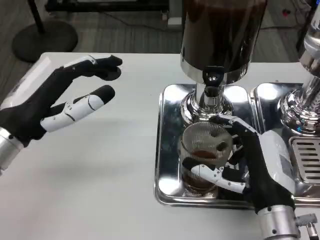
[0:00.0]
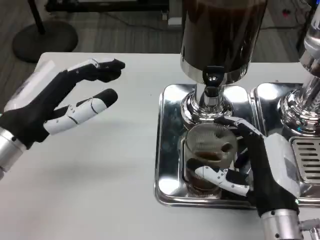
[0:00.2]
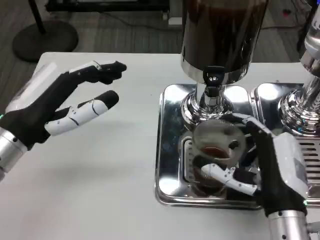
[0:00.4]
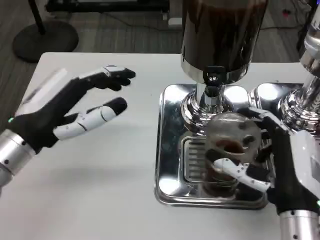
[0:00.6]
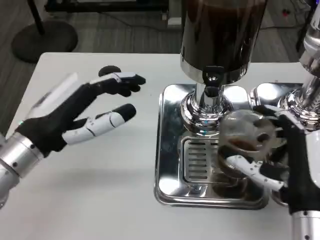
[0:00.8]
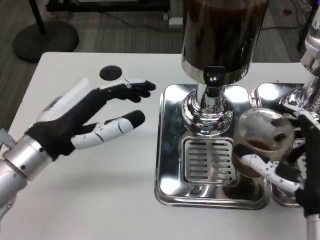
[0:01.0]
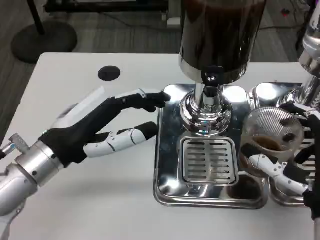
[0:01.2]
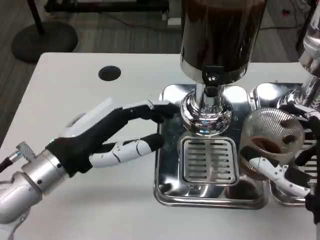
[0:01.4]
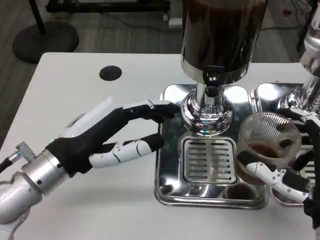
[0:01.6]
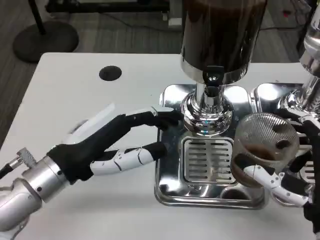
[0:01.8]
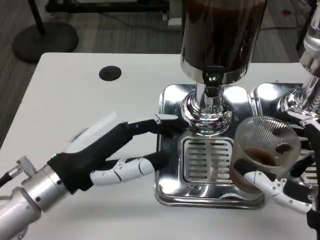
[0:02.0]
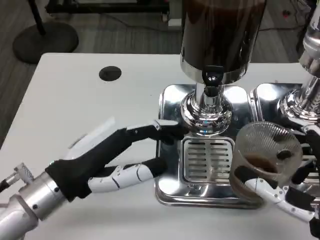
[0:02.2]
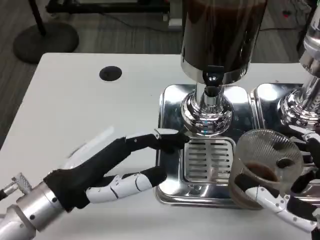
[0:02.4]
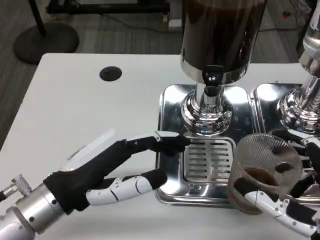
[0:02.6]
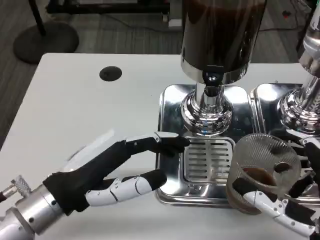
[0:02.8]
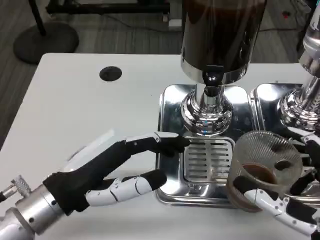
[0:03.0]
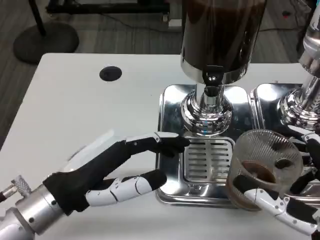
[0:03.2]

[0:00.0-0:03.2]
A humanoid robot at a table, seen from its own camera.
Task of the whole recording: Grasp the cup under the faucet to collect the drink, then remove the cup.
0:00.0 to 0:01.6: The left hand ends up about 5 cm from where it was. The right hand moves some 5 cm.
0:01.6 to 0:03.2: The right hand ends up about 5 cm from where it was.

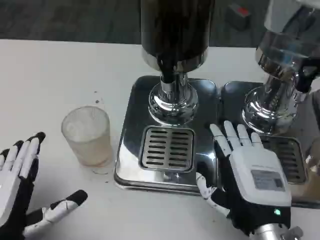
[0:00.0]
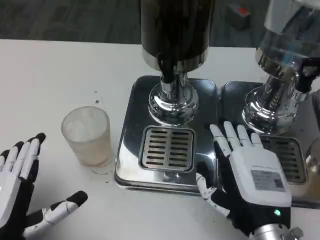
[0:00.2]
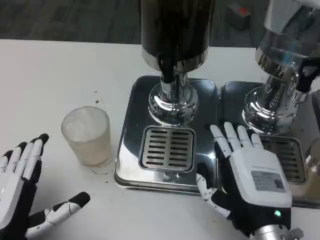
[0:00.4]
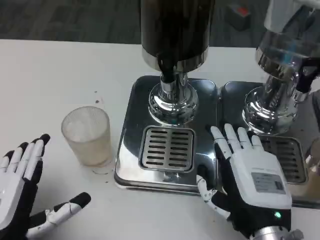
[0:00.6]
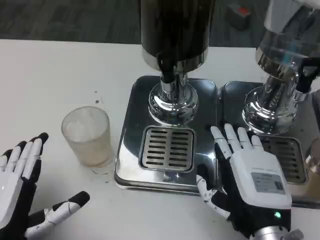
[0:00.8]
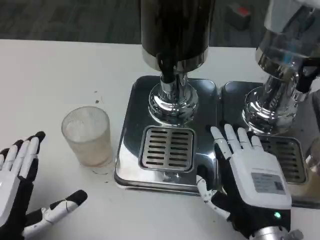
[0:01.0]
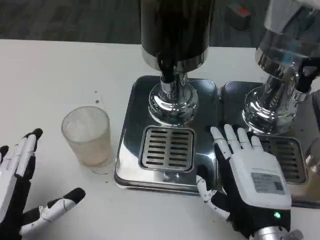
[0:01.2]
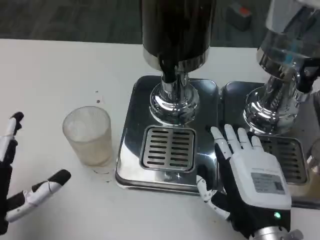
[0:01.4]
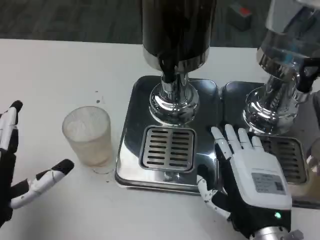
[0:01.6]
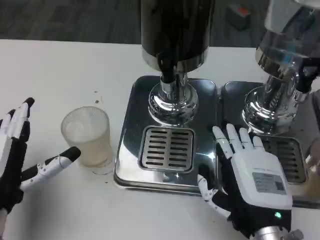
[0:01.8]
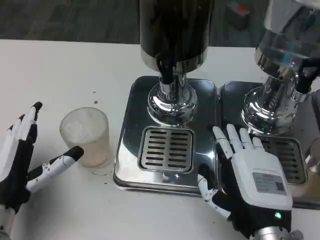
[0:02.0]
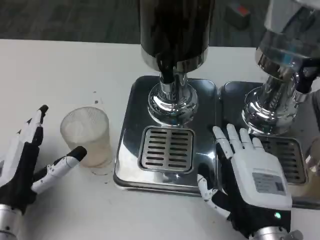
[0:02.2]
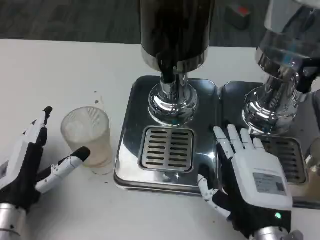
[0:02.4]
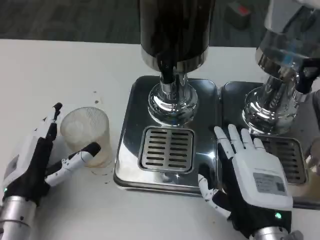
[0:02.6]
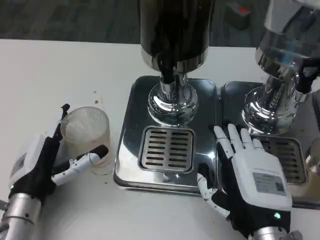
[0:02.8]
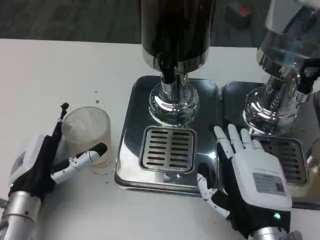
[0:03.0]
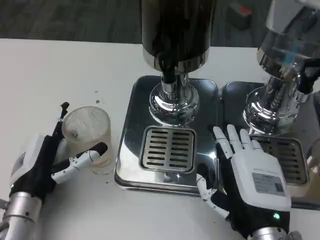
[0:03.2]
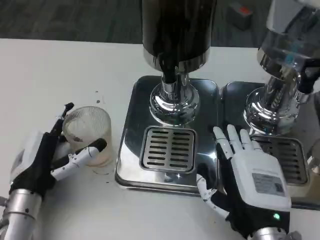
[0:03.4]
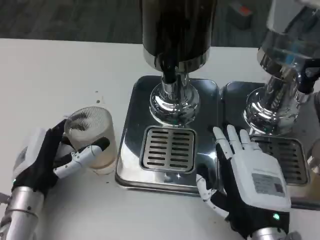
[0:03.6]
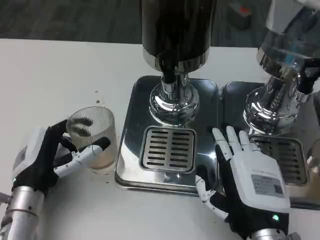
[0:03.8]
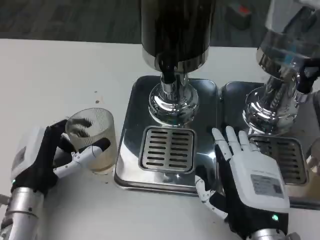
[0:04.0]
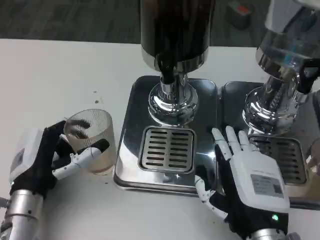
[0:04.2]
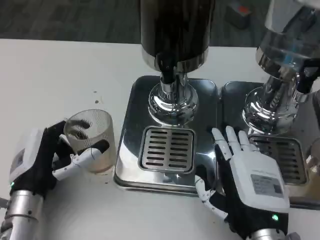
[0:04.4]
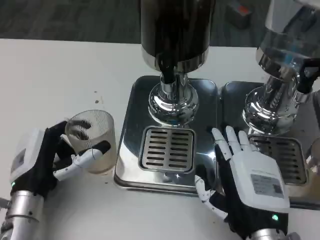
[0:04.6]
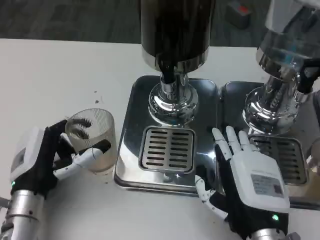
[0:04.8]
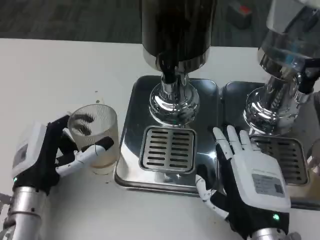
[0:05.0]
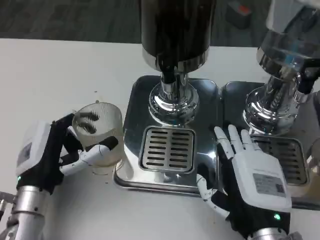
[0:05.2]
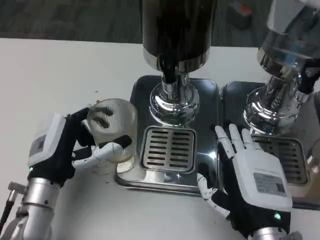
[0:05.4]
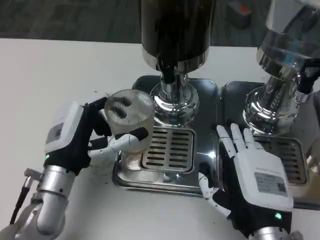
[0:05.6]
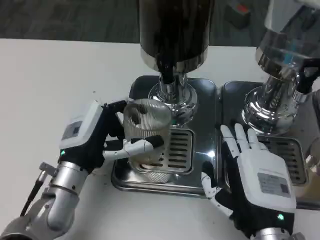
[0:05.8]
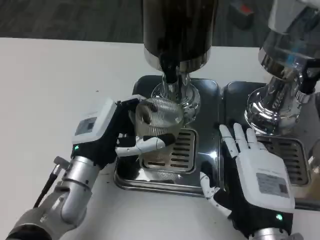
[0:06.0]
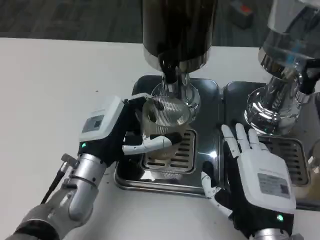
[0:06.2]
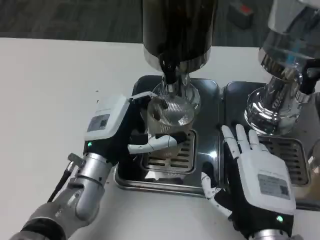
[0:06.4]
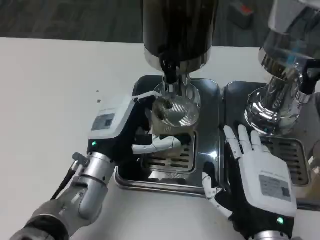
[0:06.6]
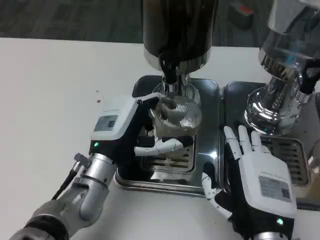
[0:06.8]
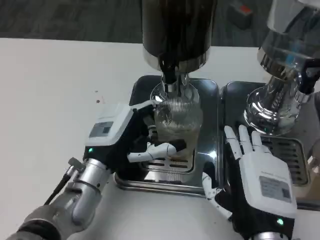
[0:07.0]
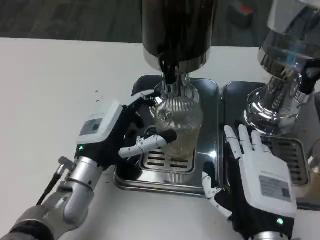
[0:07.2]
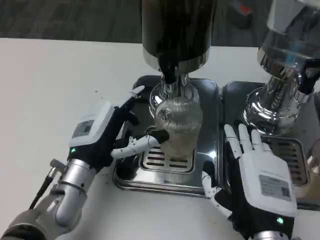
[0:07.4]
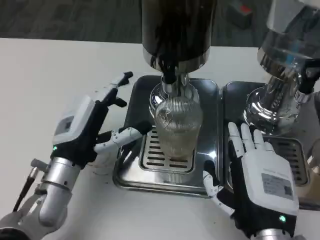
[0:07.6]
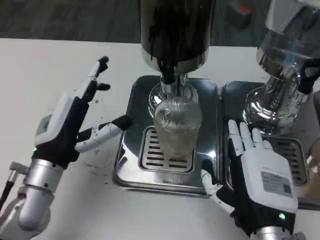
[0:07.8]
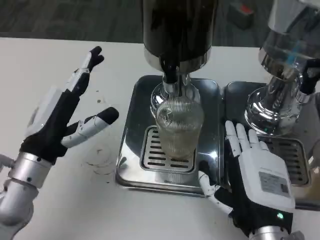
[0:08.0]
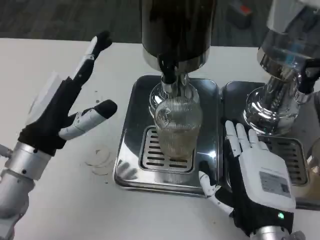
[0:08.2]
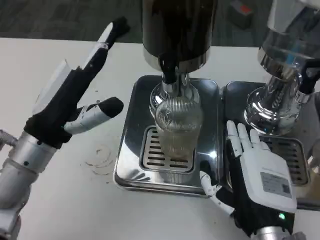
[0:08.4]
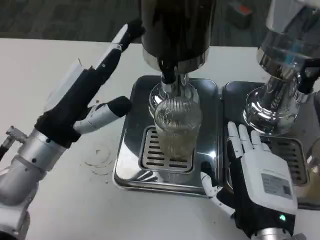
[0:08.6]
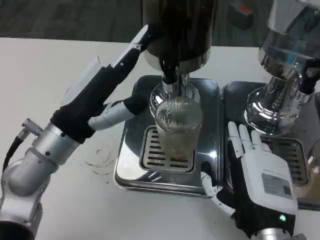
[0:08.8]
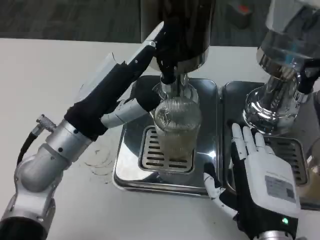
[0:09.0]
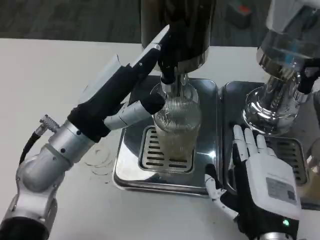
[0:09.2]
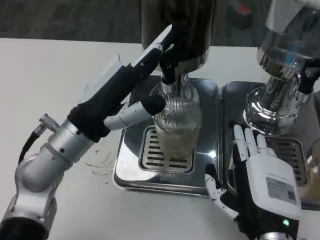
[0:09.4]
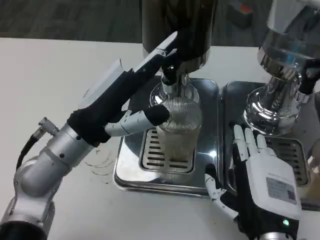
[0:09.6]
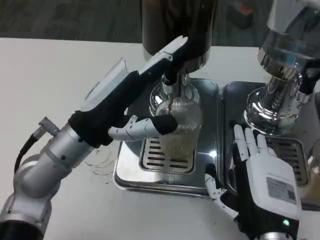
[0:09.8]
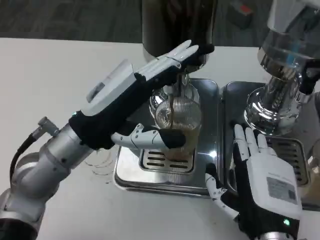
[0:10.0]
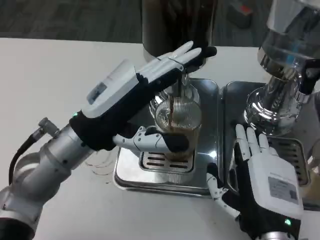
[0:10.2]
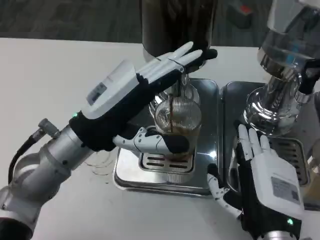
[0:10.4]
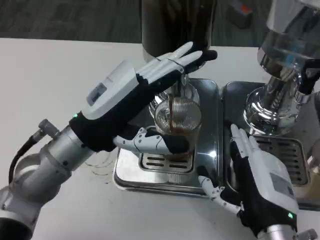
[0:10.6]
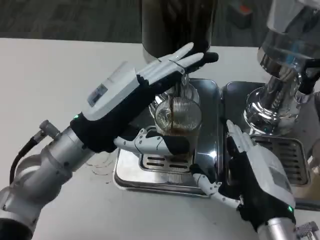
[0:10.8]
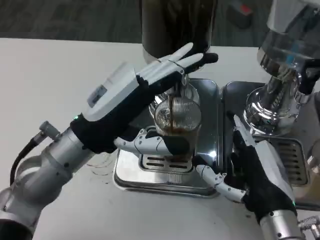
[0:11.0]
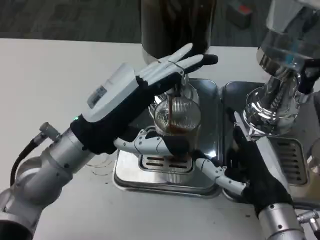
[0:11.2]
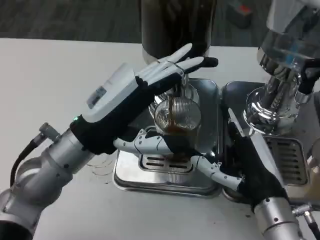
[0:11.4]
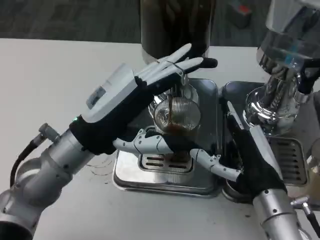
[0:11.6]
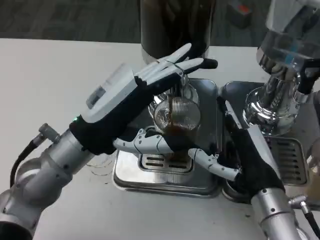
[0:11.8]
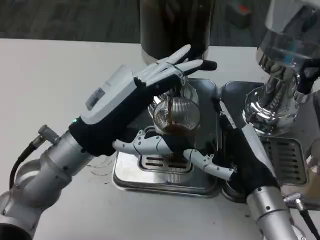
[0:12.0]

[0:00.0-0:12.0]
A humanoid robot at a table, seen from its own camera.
Task of the whole recording: Grasp the cup under the faucet to collect the drink, then remove the cup.
0:00.0 to 0:01.6: The hands stay close to where they were, moving slightly.
0:01.6 to 0:03.0: The left hand shifts roughly 5 cm forward.
0:03.0 to 0:04.4: The hands stay close to where they were, moving slightly.
0:04.4 to 0:06.0: The left hand heads to the right, covering some 5 cm.
0:07.6 to 0:09.0: The left hand is displaced upward by approximately 5 cm.
0:10.4 to 0:12.0: The right hand moves forward, some 5 cm.

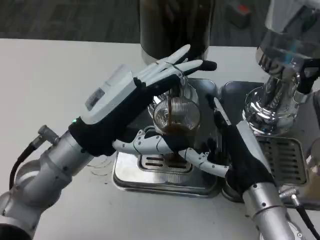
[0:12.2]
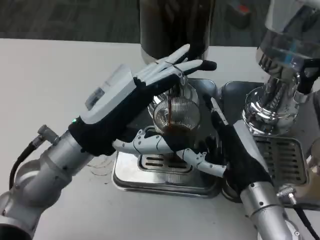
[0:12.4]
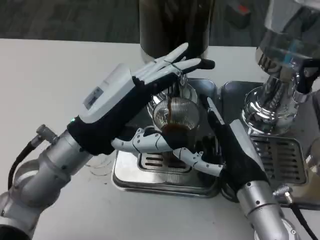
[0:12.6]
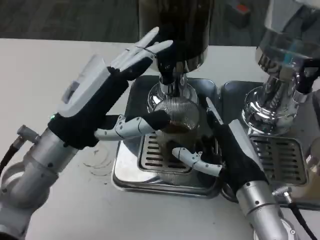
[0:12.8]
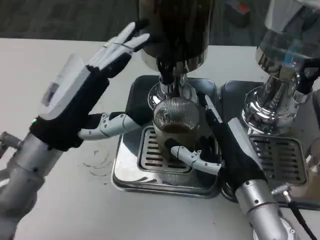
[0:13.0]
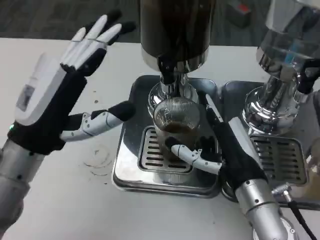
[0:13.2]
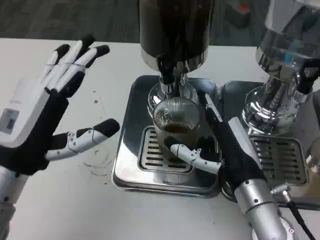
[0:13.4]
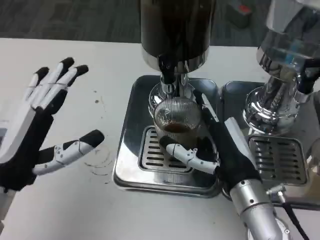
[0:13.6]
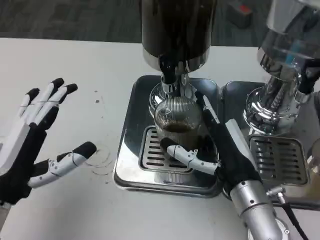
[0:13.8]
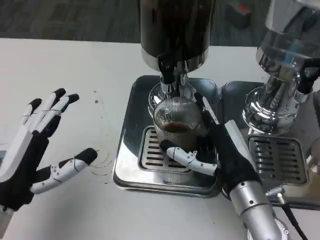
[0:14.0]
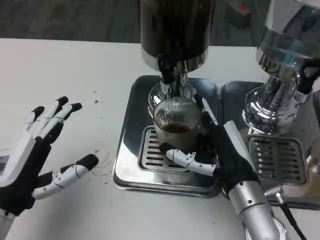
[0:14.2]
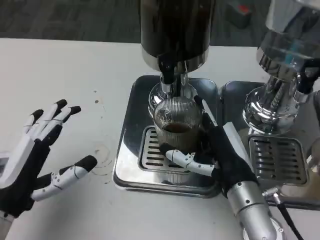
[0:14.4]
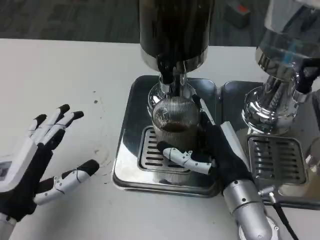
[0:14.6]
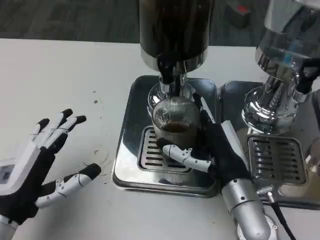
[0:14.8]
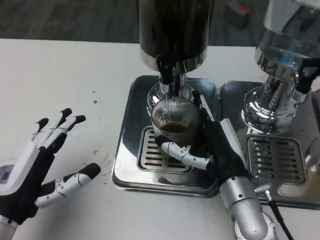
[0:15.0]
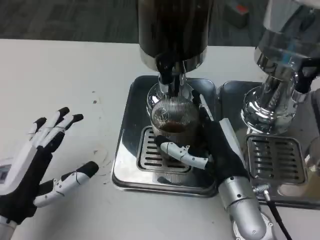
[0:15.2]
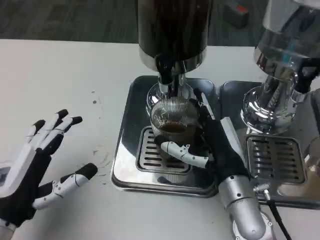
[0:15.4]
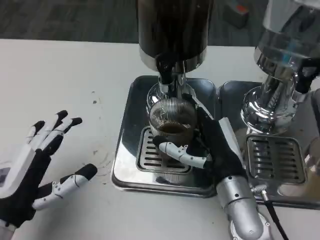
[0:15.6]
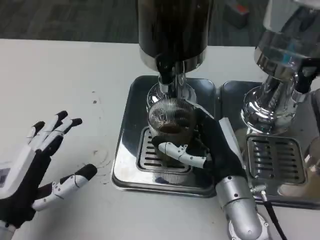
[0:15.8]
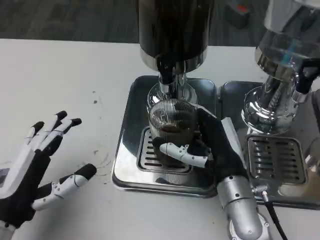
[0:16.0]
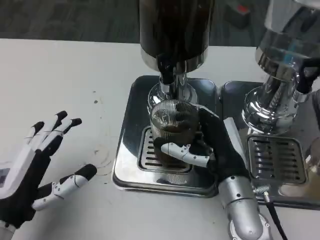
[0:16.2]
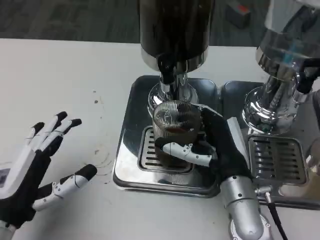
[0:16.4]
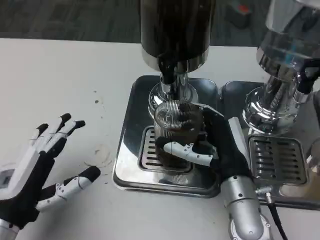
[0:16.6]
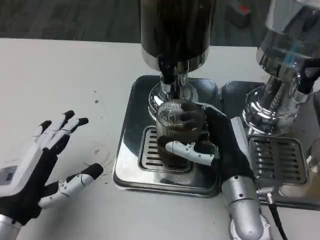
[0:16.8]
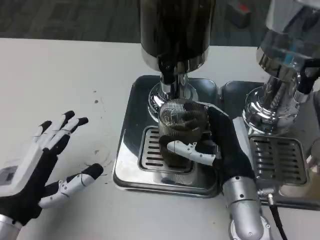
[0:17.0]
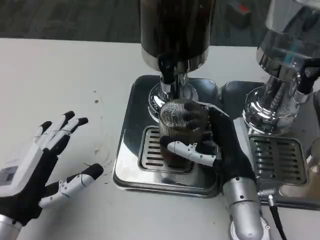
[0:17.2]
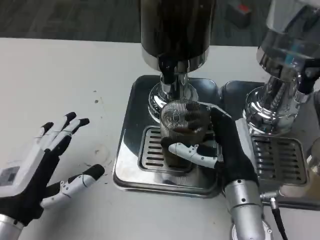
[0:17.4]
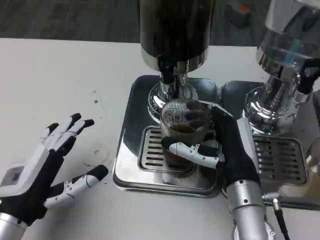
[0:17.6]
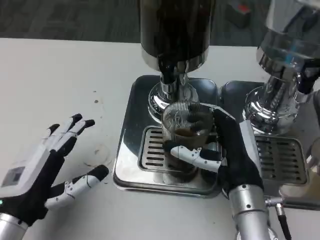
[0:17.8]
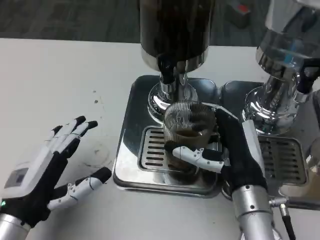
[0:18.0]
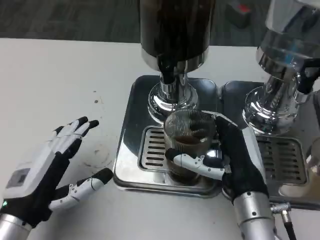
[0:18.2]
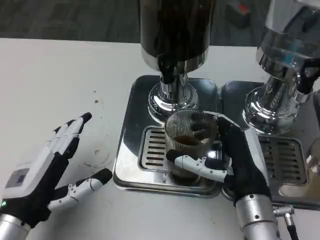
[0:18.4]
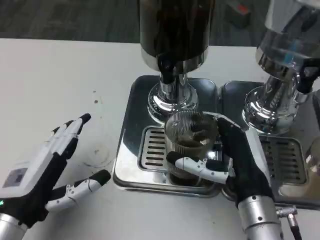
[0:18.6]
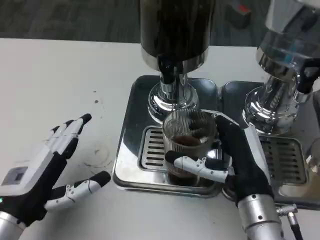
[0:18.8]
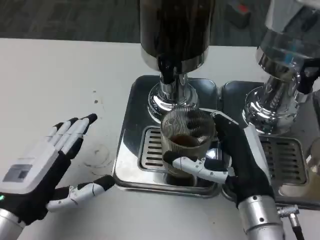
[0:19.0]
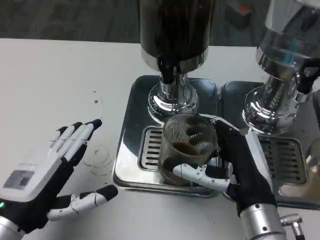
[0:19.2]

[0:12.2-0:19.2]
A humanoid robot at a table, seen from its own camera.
Task of the whole recording: Grasp the cup under the faucet to collect the drink, then remove the cup.
0:12.2 to 0:13.6: The left hand travels to the left and backward by approximately 10 cm.
0:15.0 to 0:17.8: The hands move only a little.
